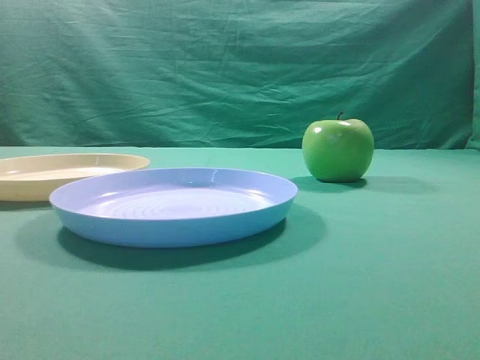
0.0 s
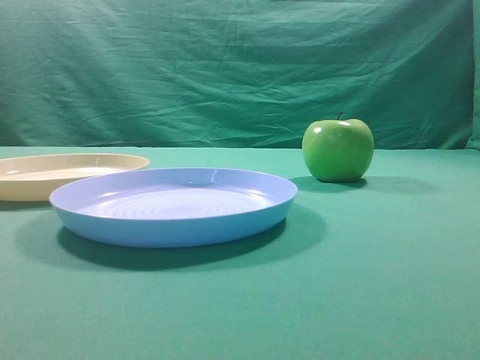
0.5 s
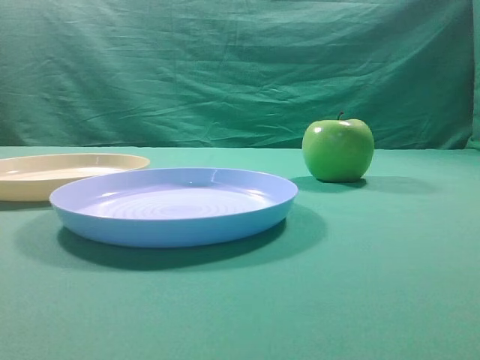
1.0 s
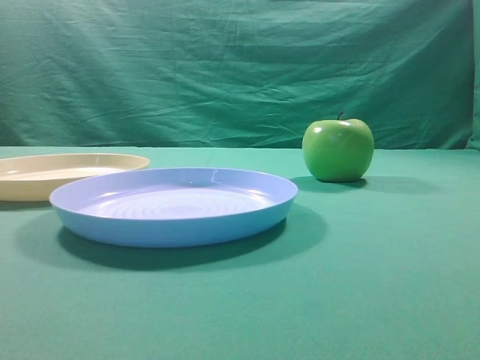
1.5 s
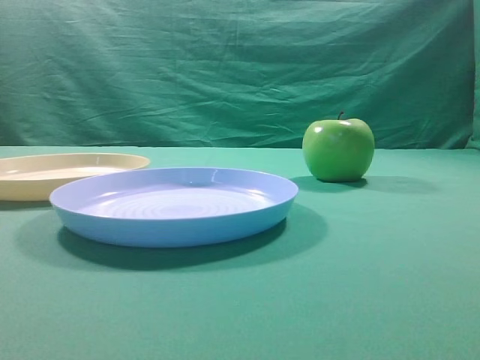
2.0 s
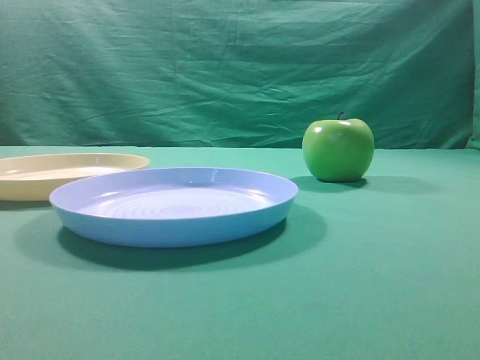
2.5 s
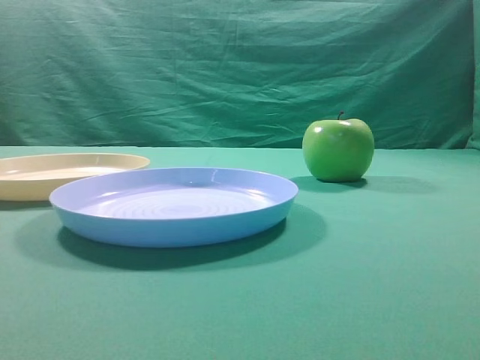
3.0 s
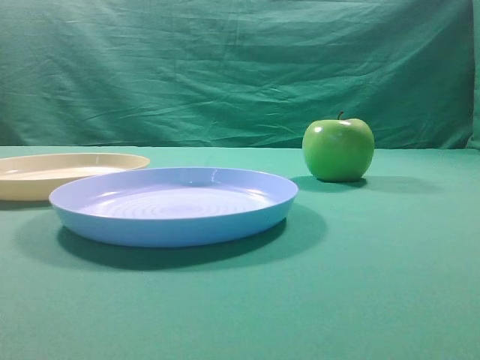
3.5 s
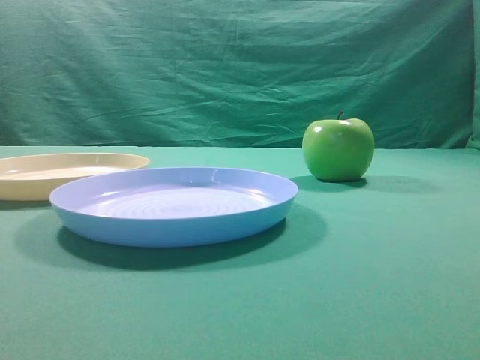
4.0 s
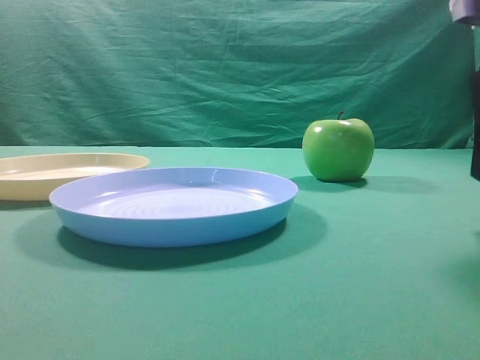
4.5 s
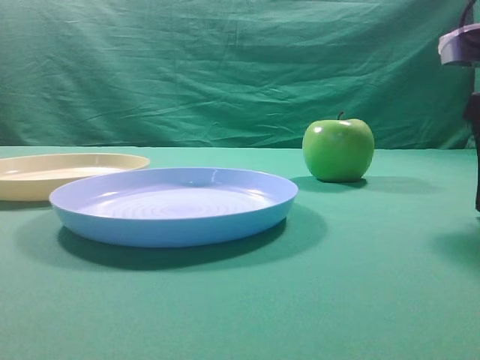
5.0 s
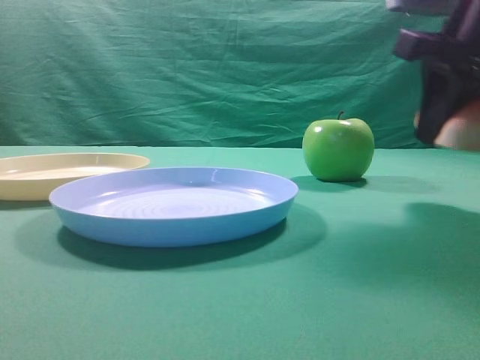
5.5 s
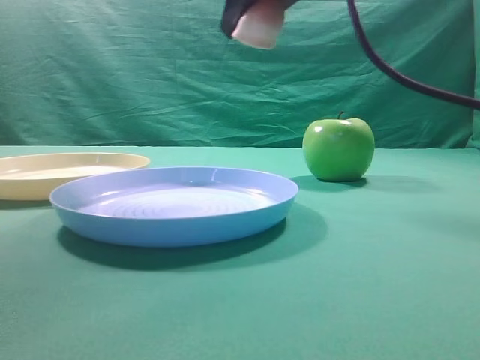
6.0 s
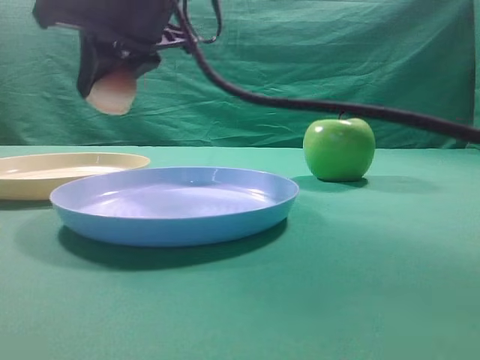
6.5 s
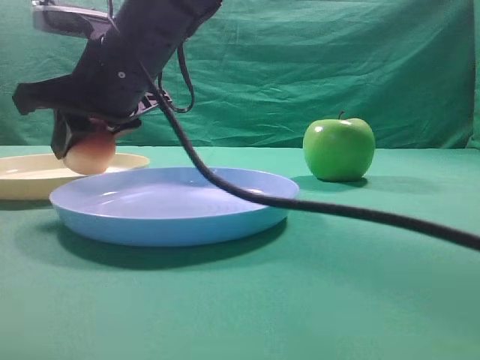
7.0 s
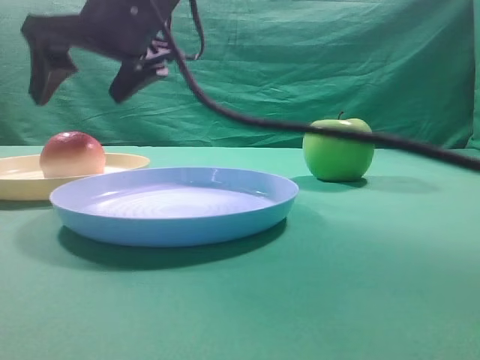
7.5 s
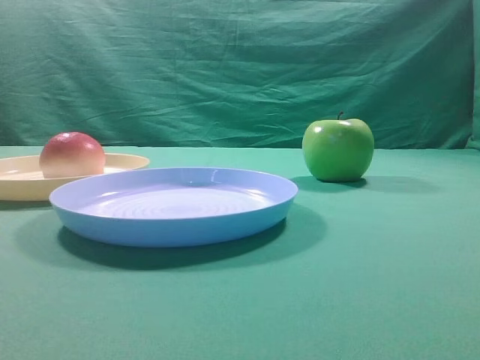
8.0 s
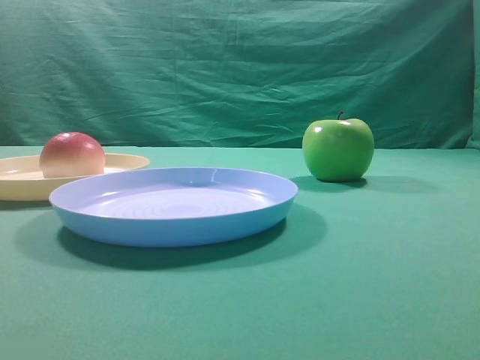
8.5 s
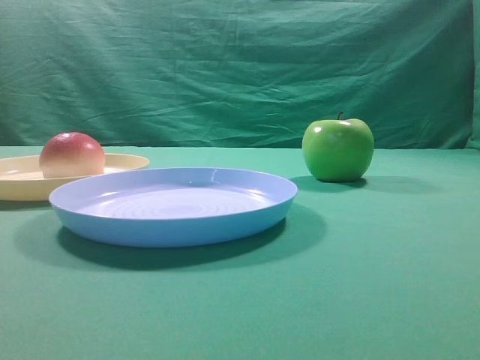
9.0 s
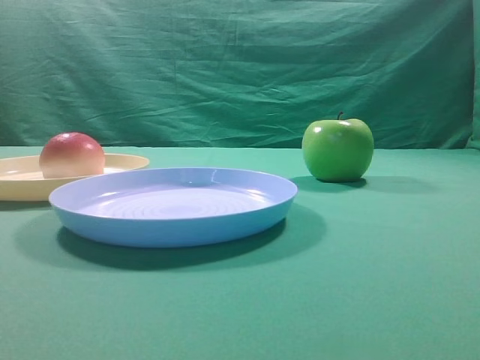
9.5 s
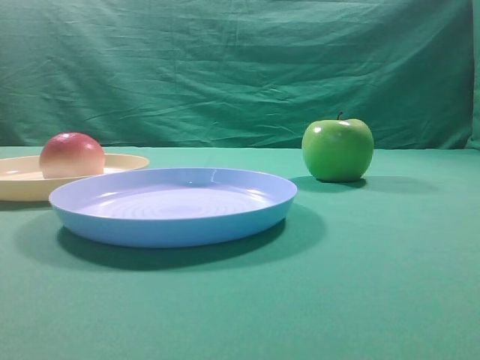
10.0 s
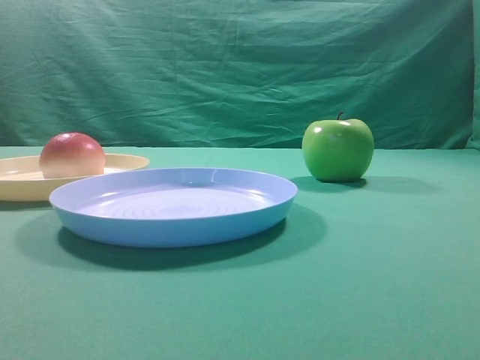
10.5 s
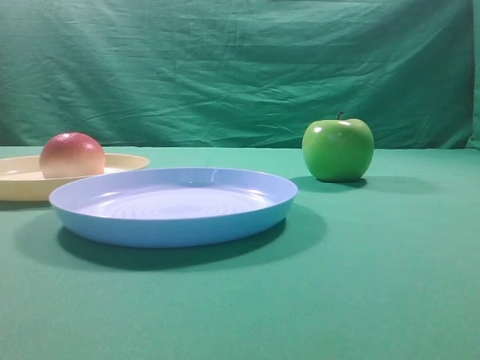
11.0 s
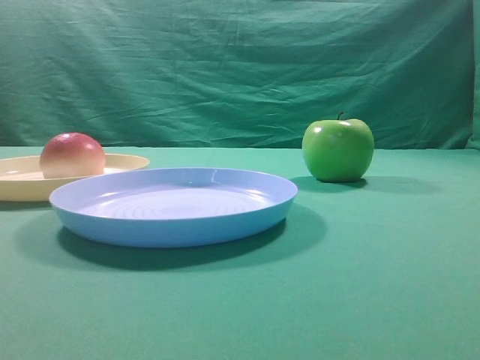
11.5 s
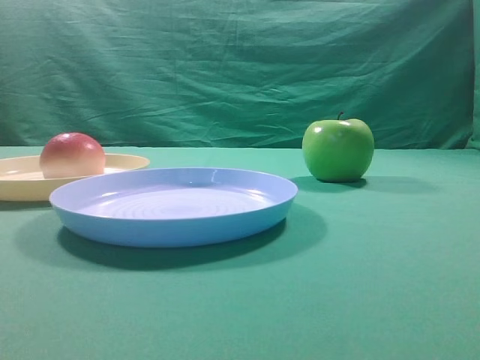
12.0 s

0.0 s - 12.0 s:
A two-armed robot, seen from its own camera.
Step, 5.5 s - 7.0 s: Place the picked object on the yellow plate.

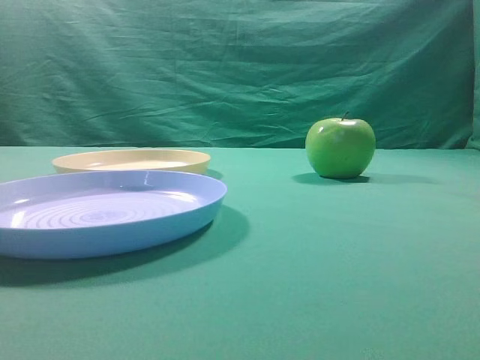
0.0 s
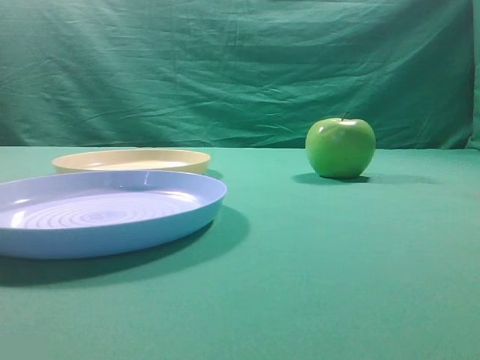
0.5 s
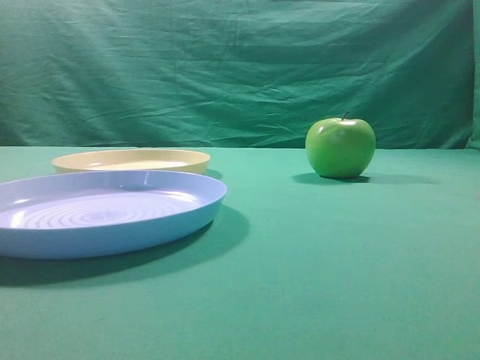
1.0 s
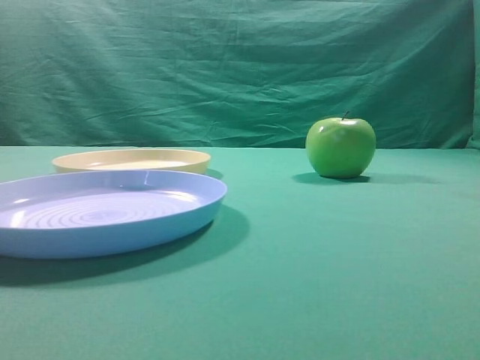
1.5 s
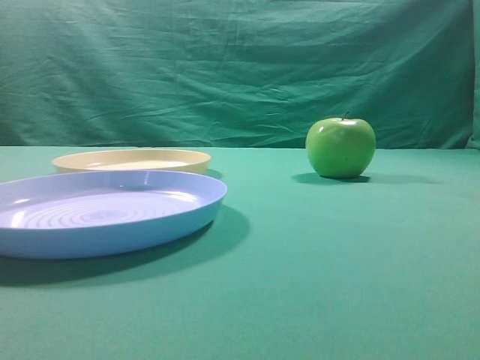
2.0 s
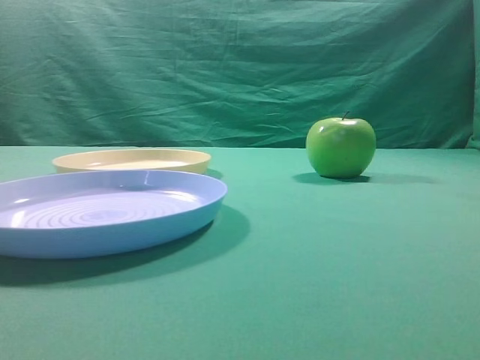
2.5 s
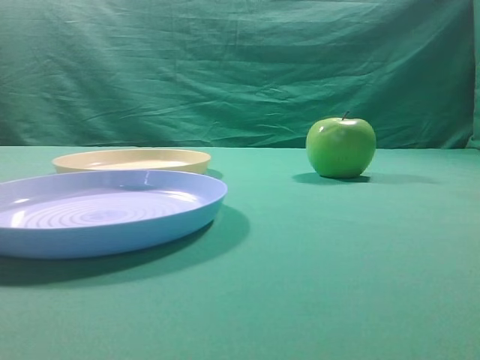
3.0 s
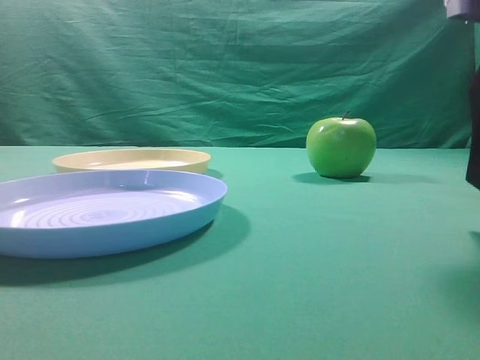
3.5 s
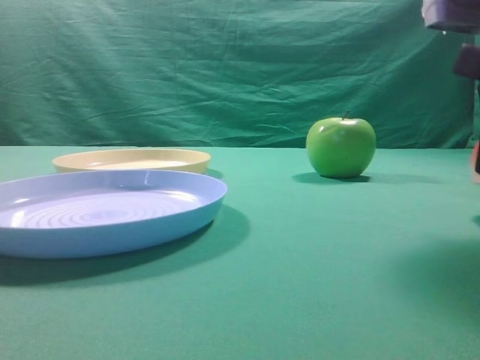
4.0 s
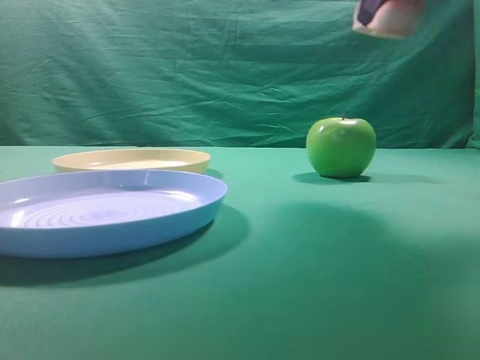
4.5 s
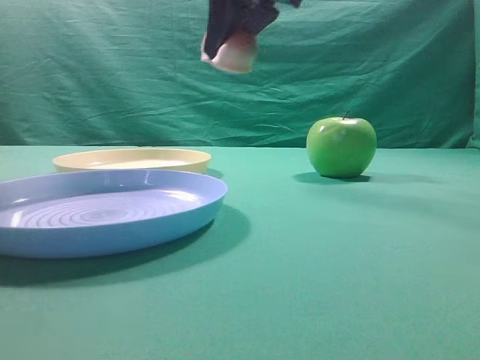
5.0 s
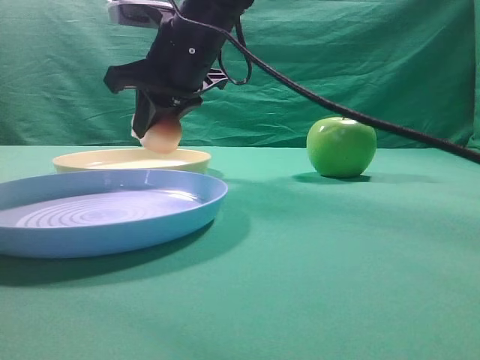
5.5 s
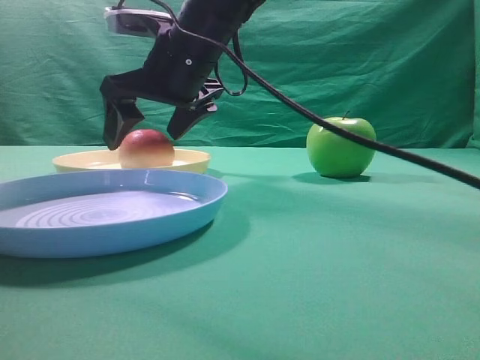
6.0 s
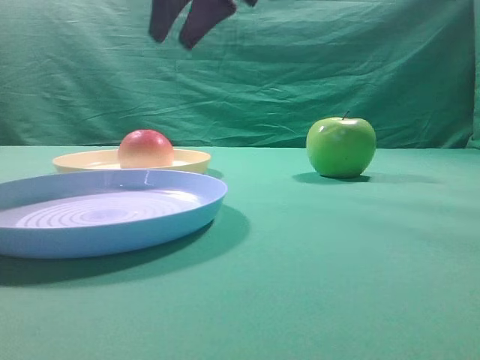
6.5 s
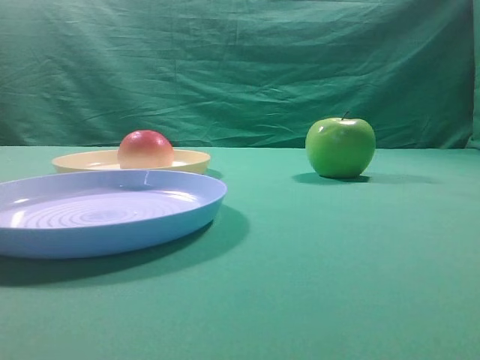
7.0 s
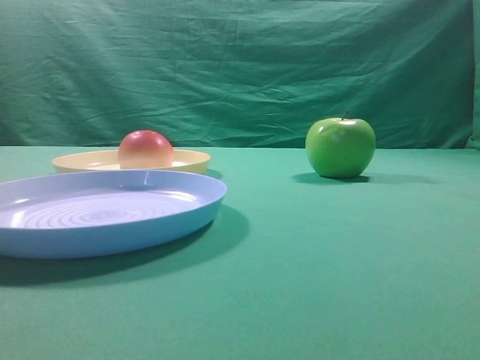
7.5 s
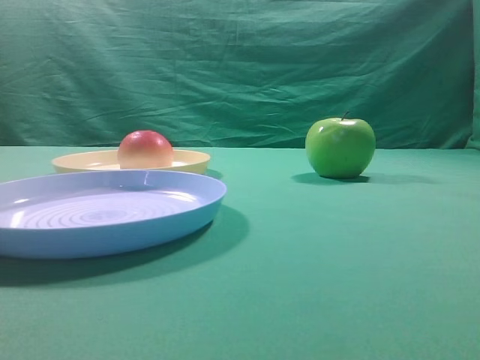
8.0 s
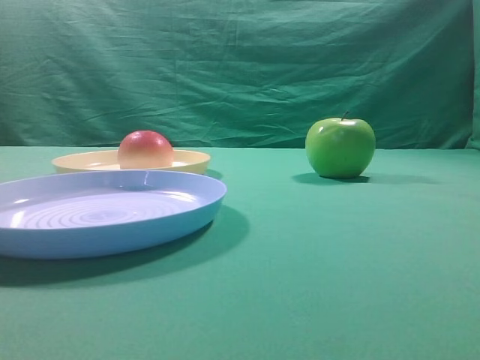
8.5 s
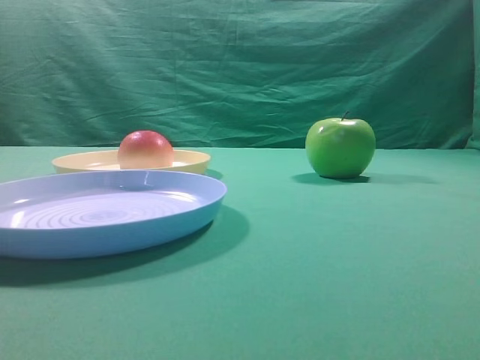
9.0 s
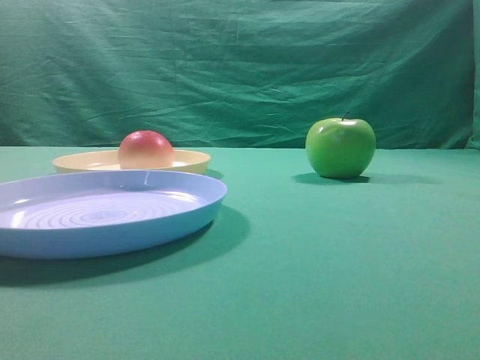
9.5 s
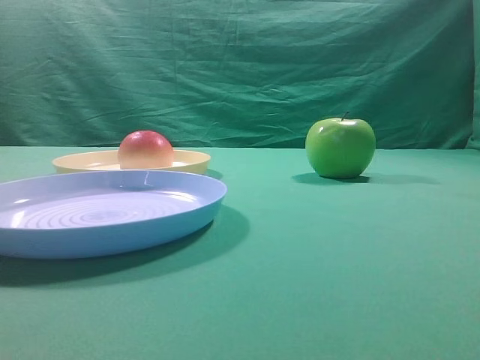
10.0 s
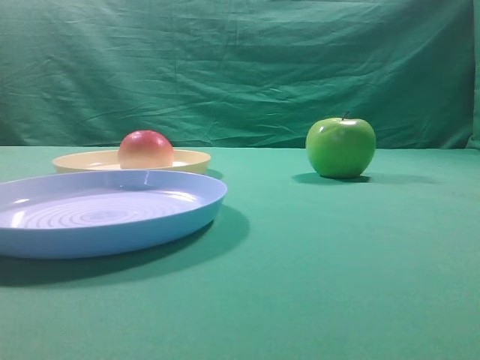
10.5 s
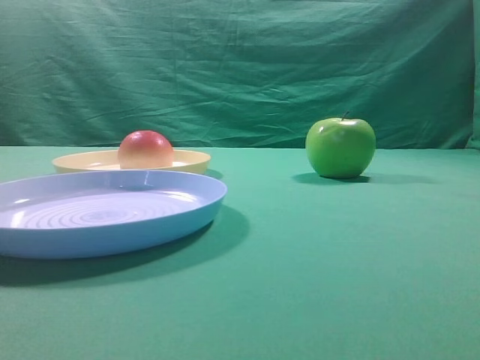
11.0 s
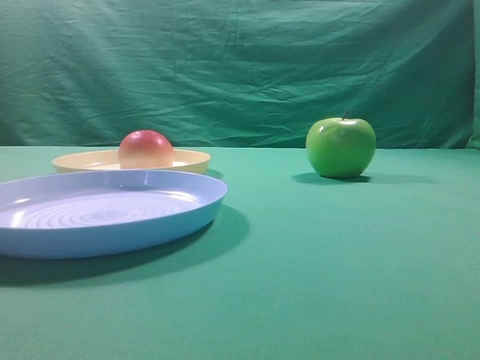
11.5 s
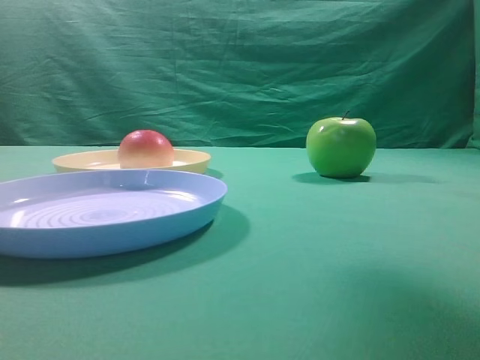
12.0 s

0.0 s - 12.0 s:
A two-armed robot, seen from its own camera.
Step, 4.5 s - 6.0 s: Place the picked object on the yellow plate.
